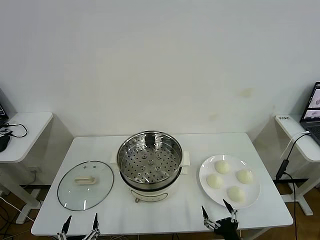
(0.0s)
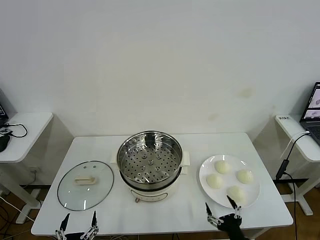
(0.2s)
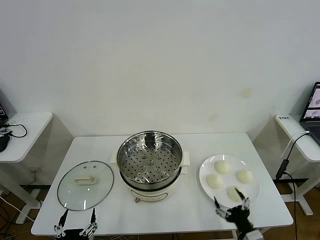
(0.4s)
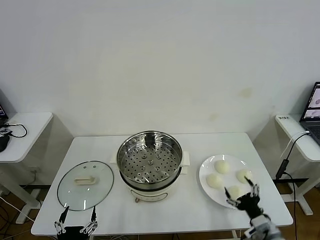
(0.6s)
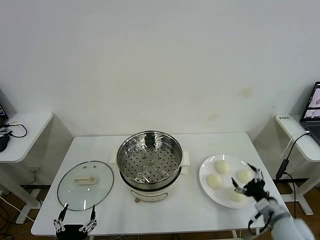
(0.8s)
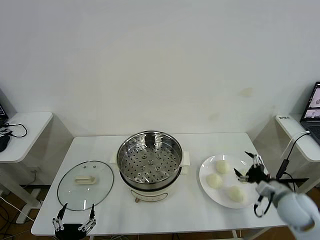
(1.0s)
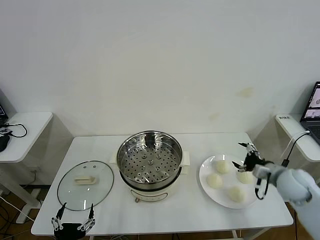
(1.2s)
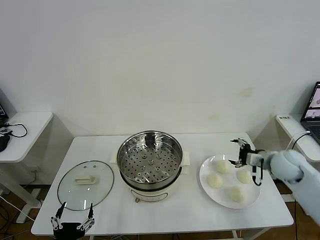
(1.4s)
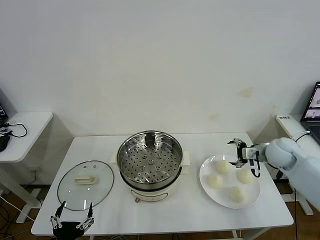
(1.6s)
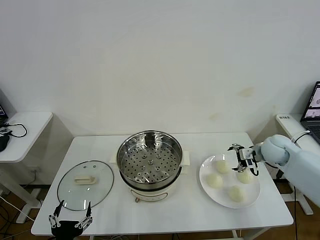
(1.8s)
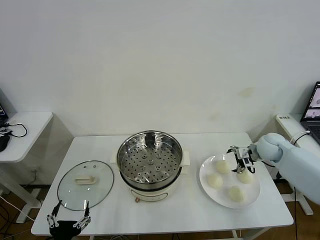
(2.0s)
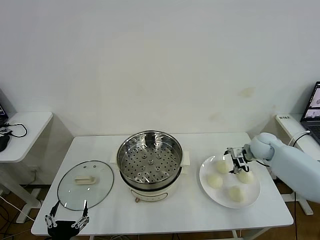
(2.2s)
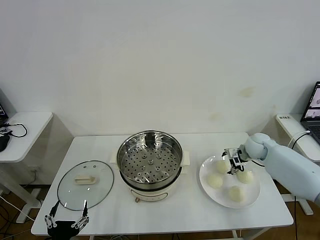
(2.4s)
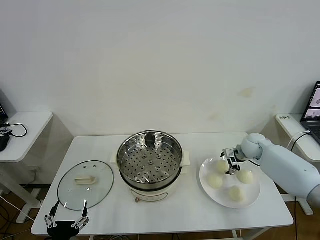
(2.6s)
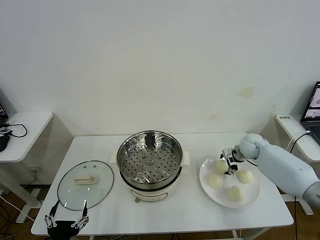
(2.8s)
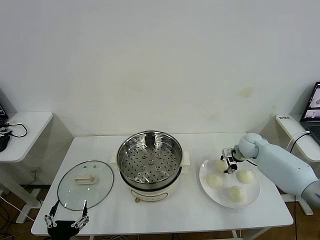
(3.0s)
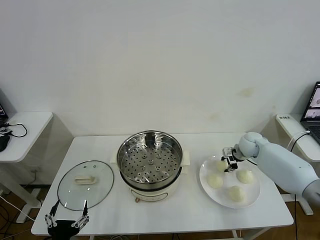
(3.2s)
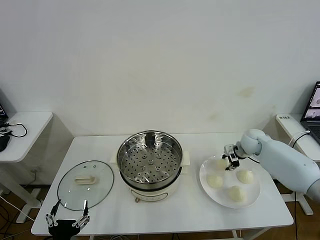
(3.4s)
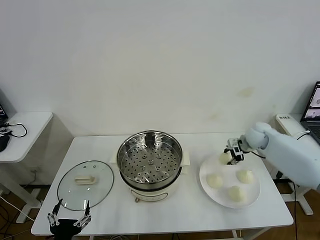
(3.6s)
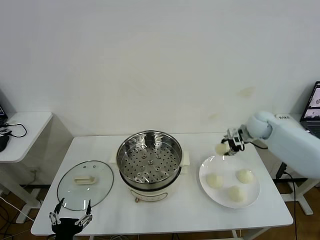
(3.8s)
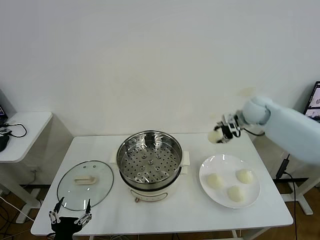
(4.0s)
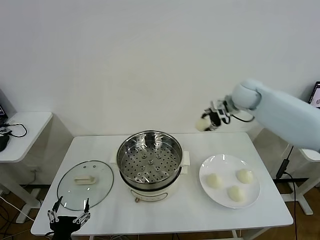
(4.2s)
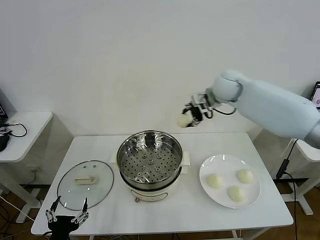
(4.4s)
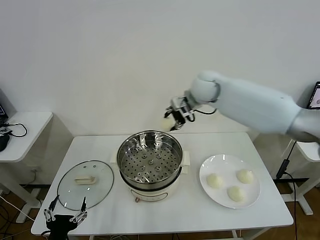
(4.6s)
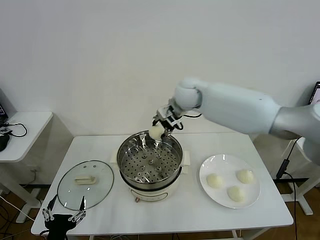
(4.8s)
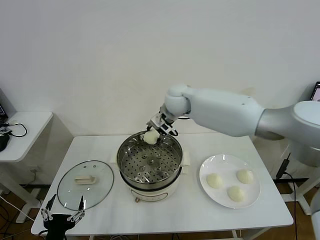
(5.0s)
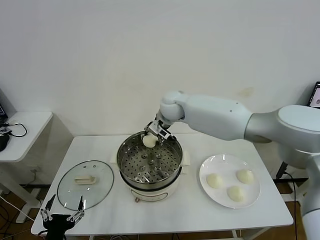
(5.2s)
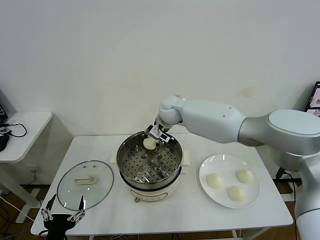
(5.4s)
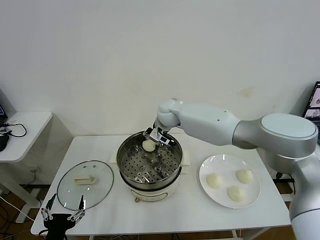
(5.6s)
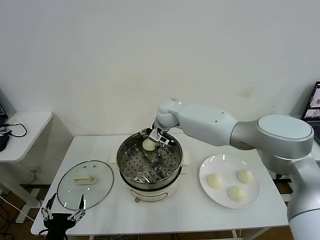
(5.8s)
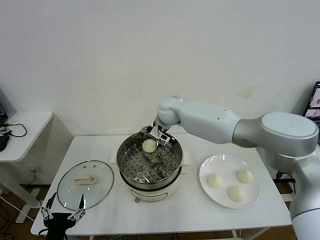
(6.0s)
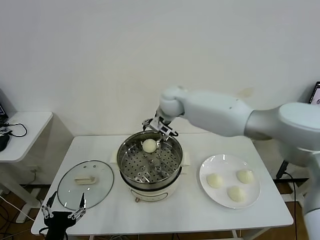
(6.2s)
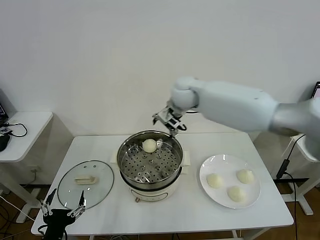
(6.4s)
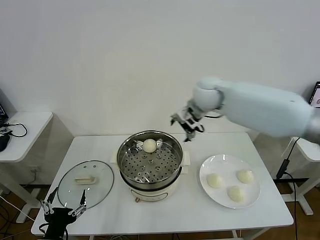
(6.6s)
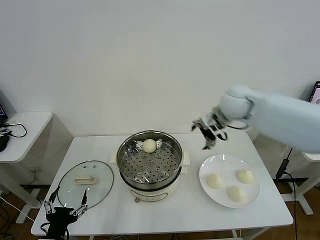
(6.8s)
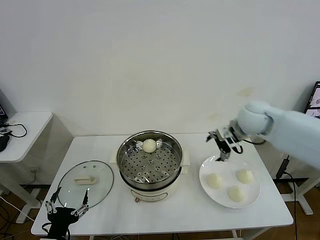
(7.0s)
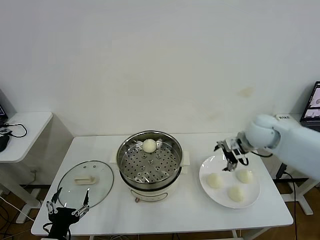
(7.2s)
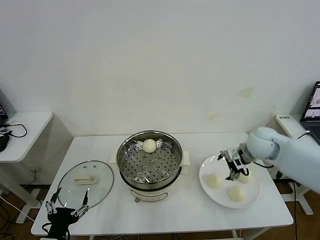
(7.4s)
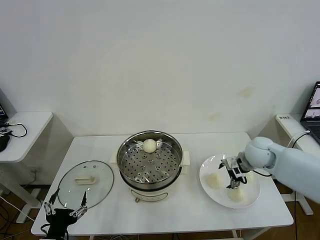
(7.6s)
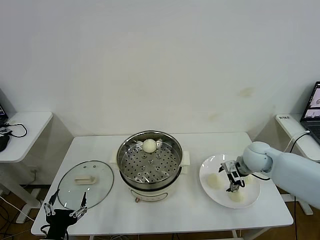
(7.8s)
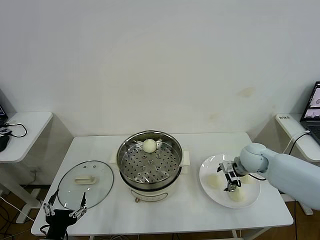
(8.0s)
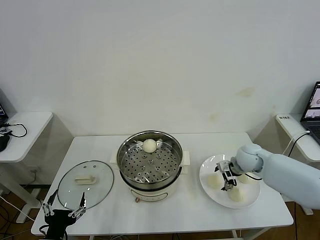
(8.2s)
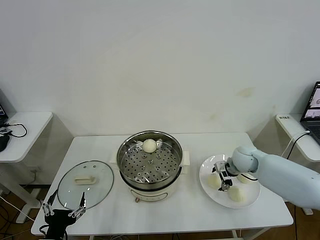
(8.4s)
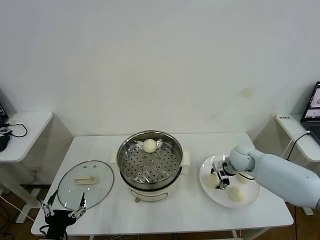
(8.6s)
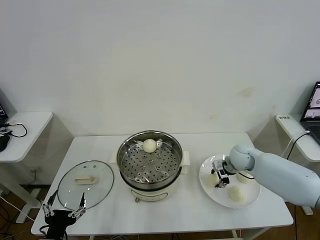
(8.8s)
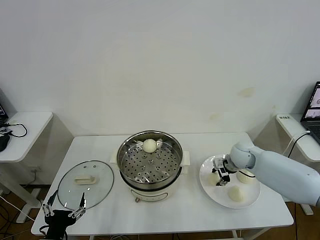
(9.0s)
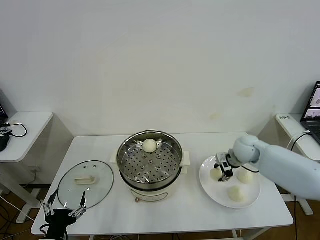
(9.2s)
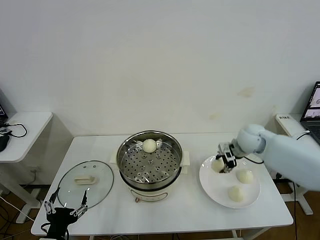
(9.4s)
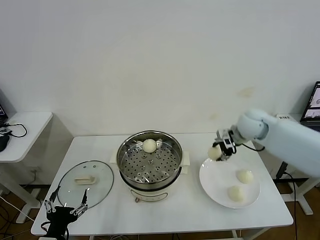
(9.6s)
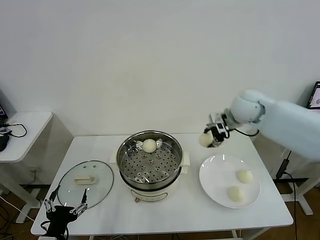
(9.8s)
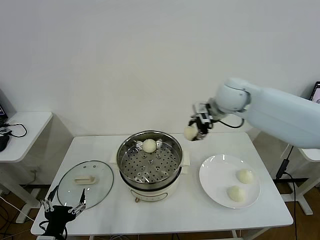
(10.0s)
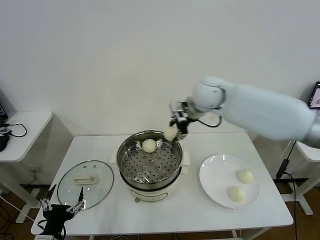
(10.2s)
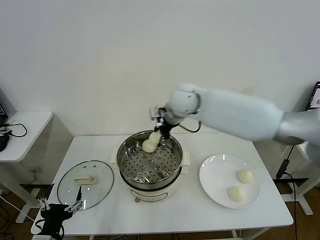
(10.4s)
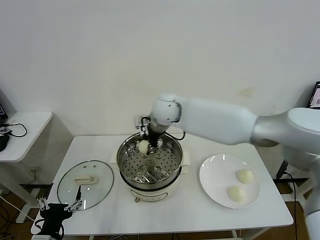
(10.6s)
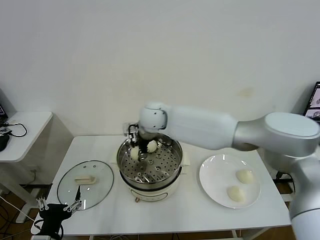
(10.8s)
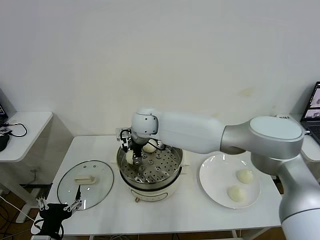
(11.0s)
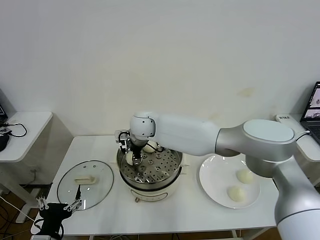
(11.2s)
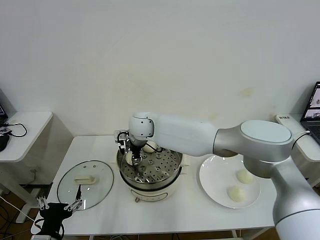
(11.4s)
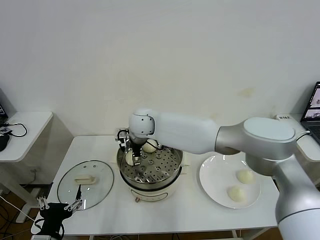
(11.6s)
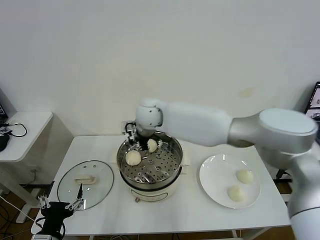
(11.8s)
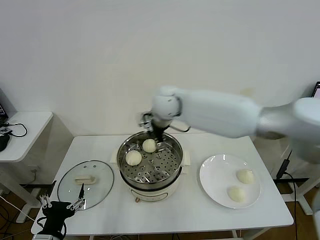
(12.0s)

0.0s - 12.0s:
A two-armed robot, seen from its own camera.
Task of the whole recording: take steamed baozi put them in steamer then cover it.
Step, 0.0s - 3.0s: Grasp the baozi in the plate with right gripper.
Step, 3.4s - 6.0s: Place the baozi on the steamer with right gripper.
Step, 6.2s - 8.8s: Grasp the baozi in the plate with right gripper.
Step, 9.0s - 11.6s: Place the baozi on the steamer with right gripper.
1.6s - 3.0s: The right gripper travels forward and downward by roughly 10 cm, and closes up.
3.0s - 4.4s: The right gripper shifts approximately 30 cm upward and to the left.
4.4s - 6.0s: The right gripper goes about 15 cm to the left and downward, and opens up.
6.0s - 7.6s: The right gripper heads to the right and backward, covering approximately 30 cm.
7.6s - 9.0s: The right gripper changes place by some 5 cm, and closes up.
9.0s - 10.4s: The right gripper heads to the left and upward, covering about 35 cm.
10.4s - 12.0s: The right gripper travels to the left and back again, about 10 cm each way, and opens up.

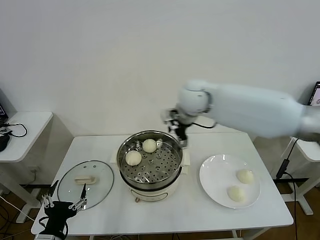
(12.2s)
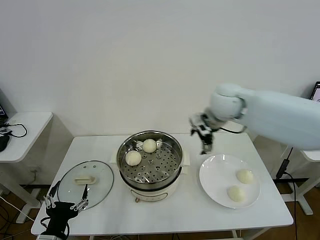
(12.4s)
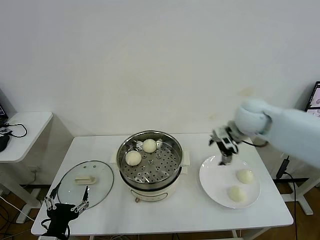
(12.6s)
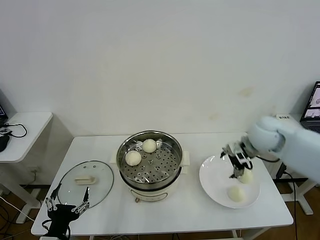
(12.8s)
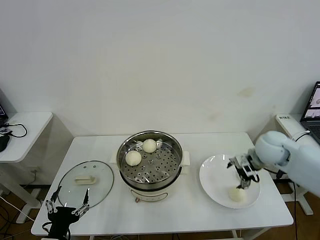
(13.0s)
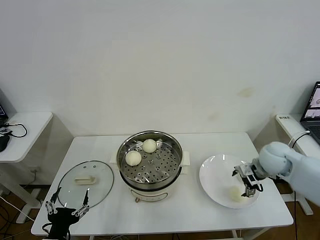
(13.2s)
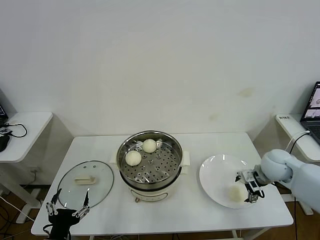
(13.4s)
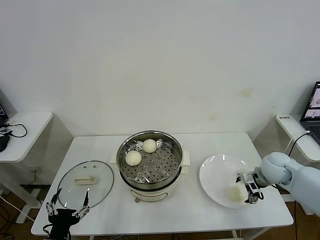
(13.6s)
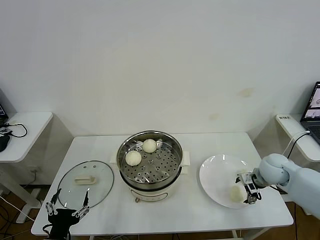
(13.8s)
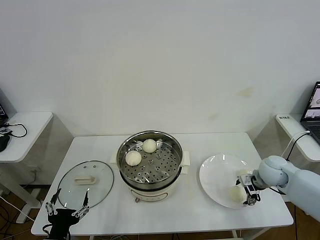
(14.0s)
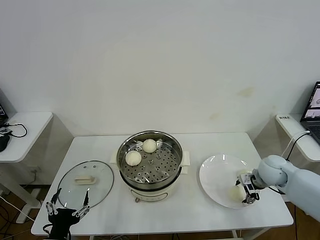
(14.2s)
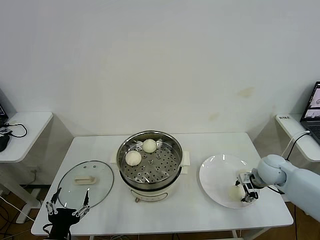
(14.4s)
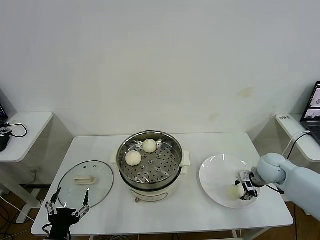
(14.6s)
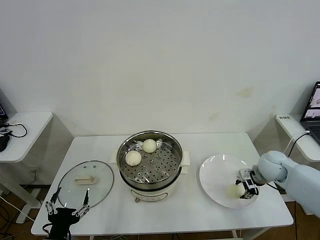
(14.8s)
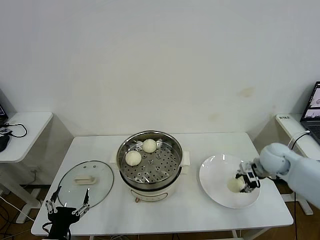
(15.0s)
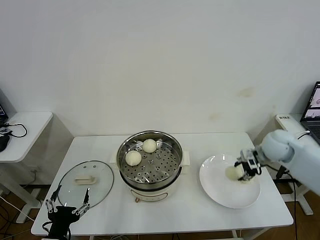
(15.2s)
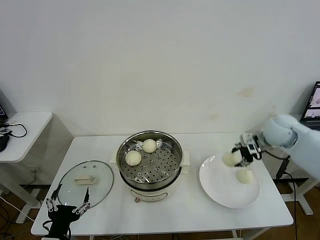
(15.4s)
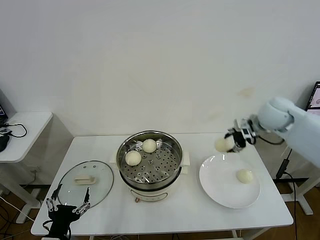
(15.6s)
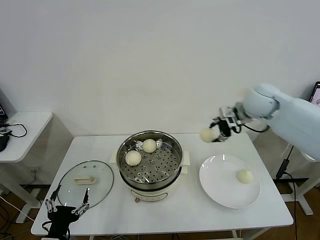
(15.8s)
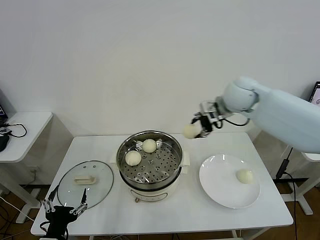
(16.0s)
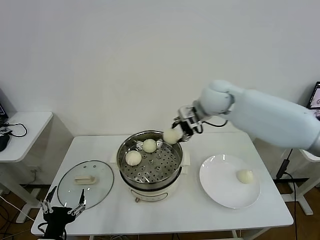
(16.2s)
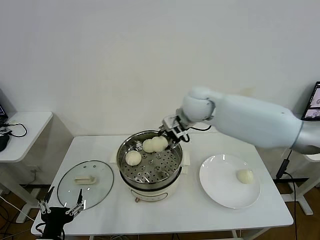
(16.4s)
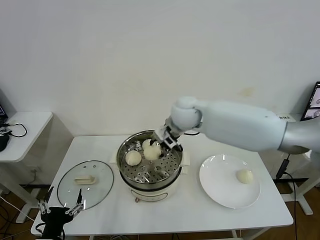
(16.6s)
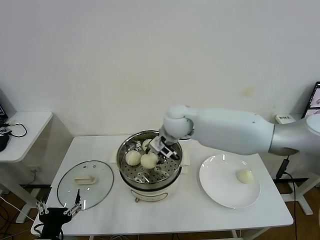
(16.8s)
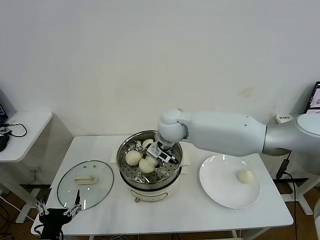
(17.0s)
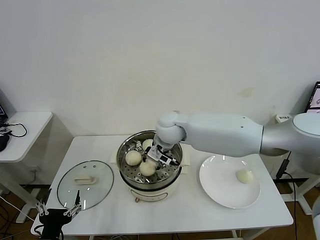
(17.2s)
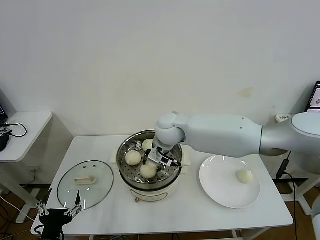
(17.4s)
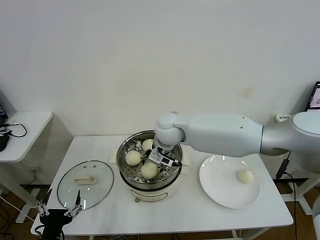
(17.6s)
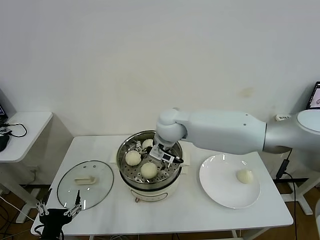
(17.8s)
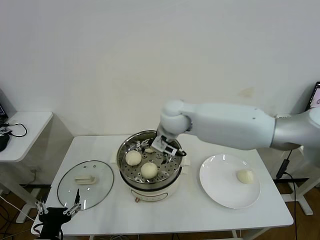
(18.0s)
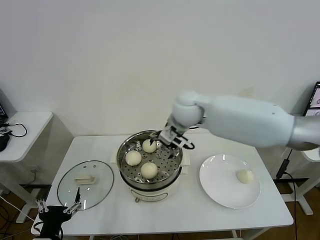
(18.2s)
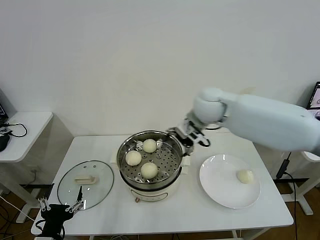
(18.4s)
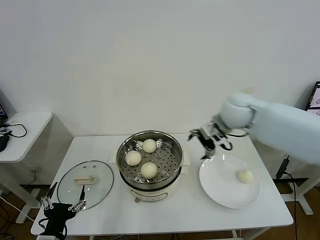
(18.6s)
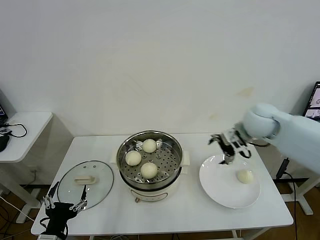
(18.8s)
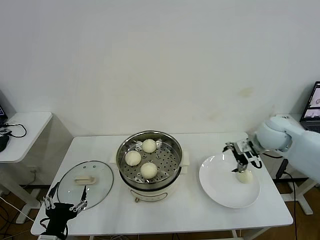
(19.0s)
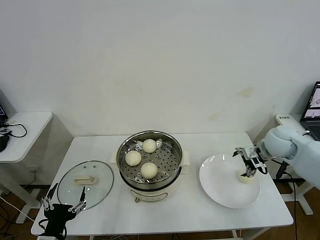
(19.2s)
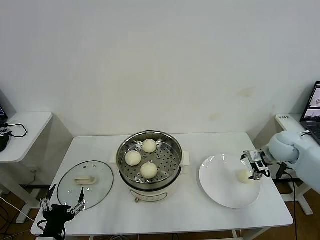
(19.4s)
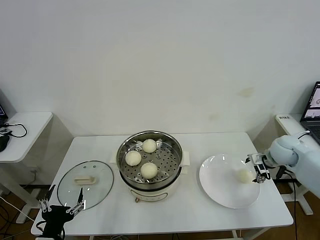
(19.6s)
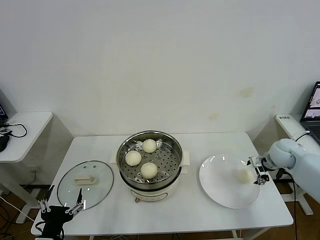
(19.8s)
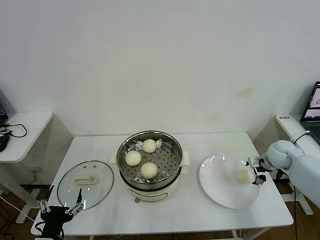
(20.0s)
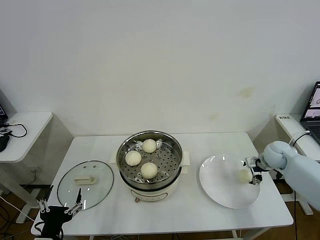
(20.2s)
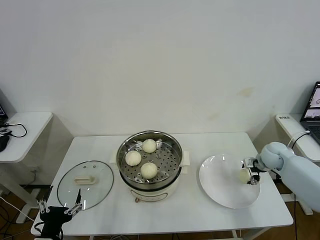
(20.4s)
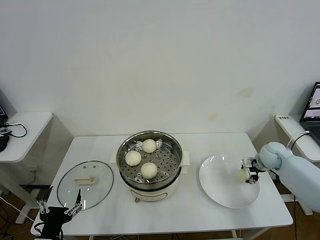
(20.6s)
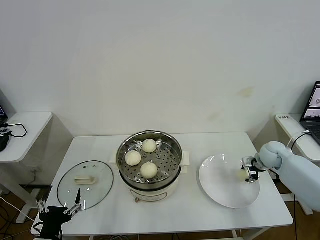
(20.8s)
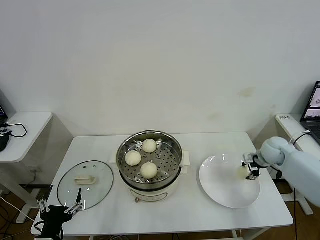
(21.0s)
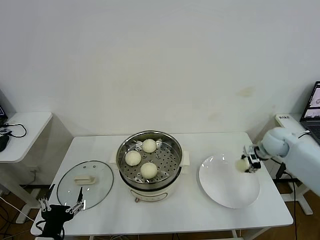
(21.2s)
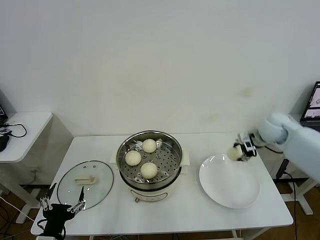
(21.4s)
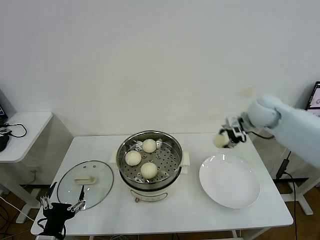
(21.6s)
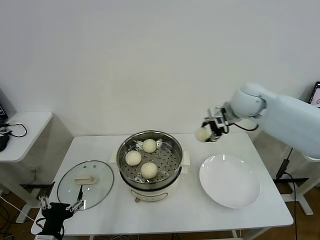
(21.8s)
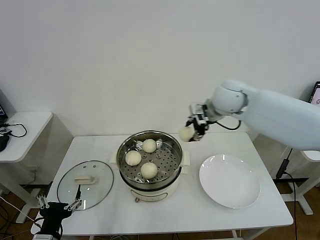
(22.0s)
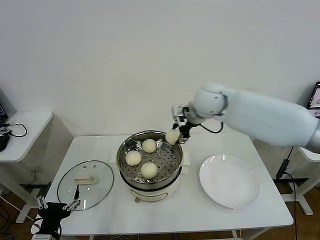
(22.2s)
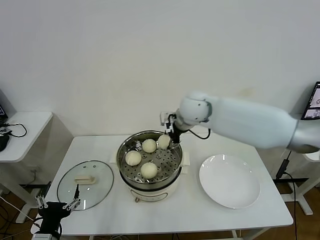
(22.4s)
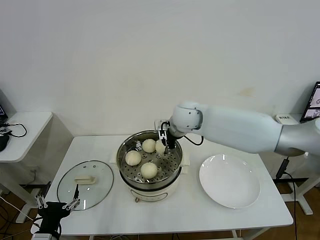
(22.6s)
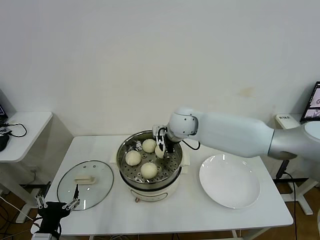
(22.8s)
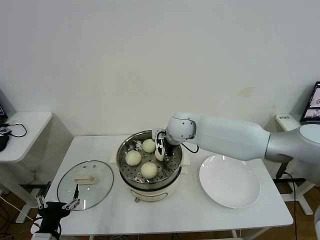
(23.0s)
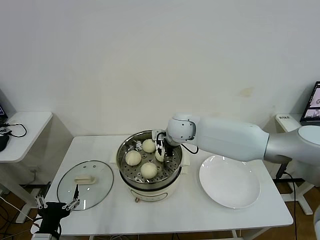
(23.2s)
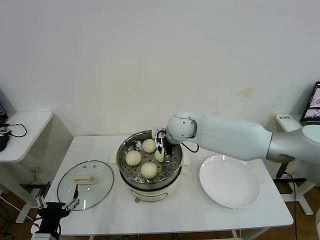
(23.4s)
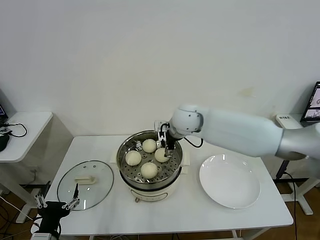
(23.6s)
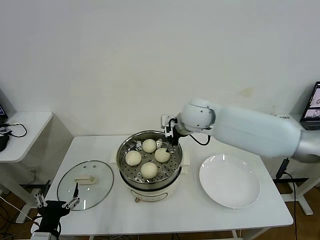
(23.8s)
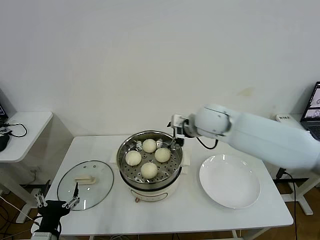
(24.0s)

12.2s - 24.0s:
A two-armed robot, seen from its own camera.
Task of the whole recording: take steamed baozi put them in steamer then cover it.
Step, 12.2s - 14.6s: Grasp the baozi in the plate with right gripper.
Step, 14.8s - 17.8s: Place the baozi on the steamer with right gripper.
Step, 18.0s - 20.6s: Grasp the baozi in the plate with right gripper.
Step, 21.0s - 23.4s: Place the baozi on the steamer with right gripper.
12.2s - 13.6s: The right gripper heads to the right and downward, covering approximately 30 cm.
13.6s - 15.2s: The right gripper travels upward by some 10 cm, and closes up.
15.2s - 16.6s: The right gripper goes about 30 cm to the left.
16.6s - 18.2s: The right gripper opens.
18.2s - 19.6s: The right gripper moves to the right and downward, some 35 cm.
19.6s - 21.0s: The right gripper closes its fingers.
21.0s - 22.6s: The right gripper heads to the left, covering about 35 cm.
22.6s - 24.0s: The right gripper shifts some 5 cm to the right, and opens its fingers.
